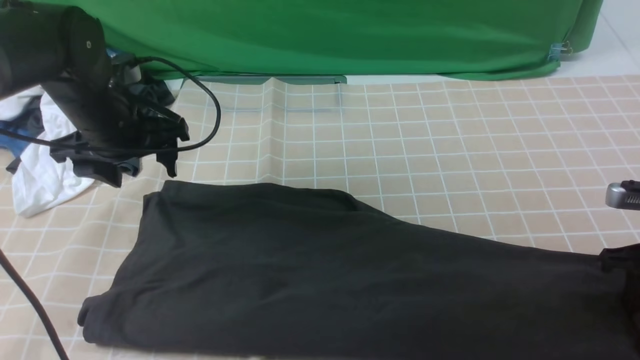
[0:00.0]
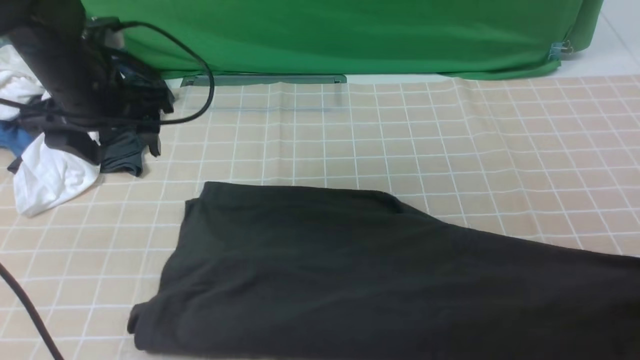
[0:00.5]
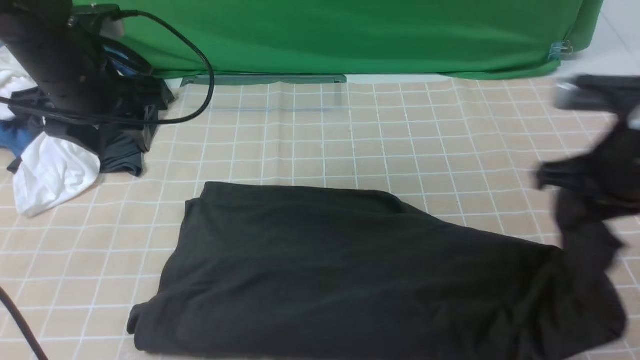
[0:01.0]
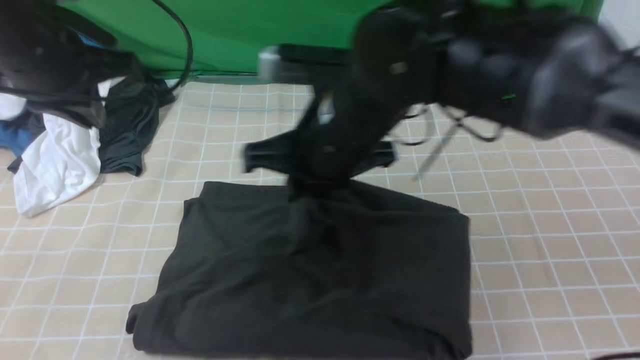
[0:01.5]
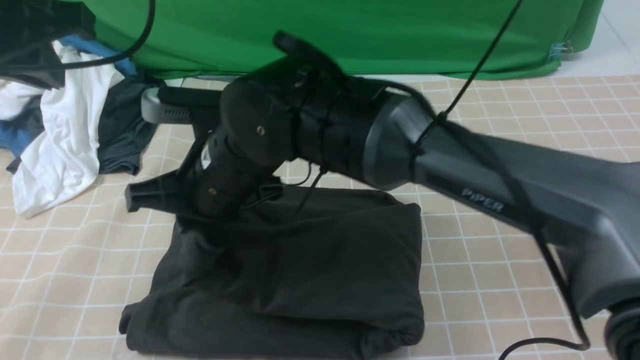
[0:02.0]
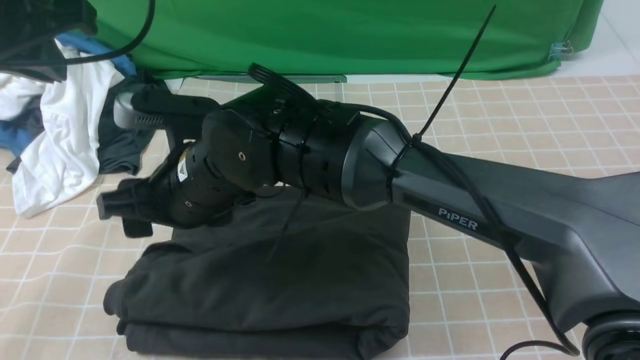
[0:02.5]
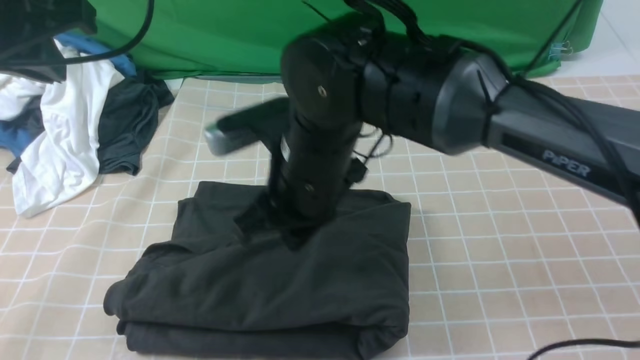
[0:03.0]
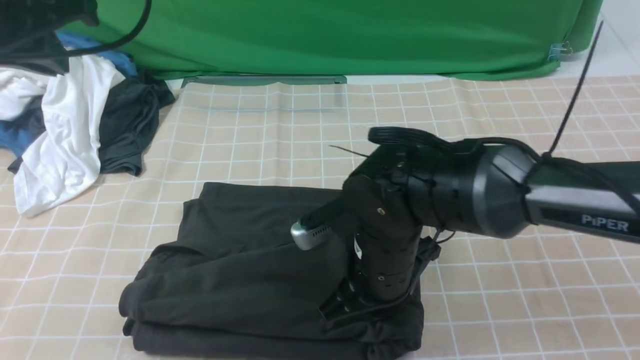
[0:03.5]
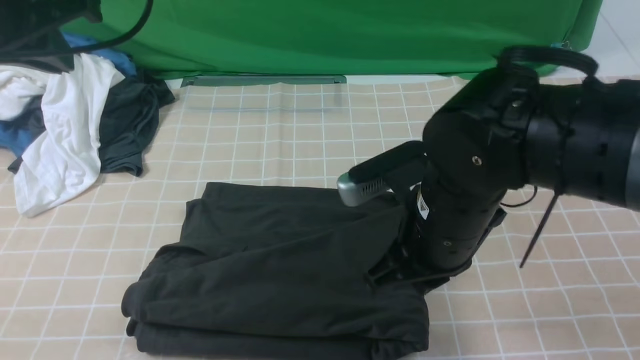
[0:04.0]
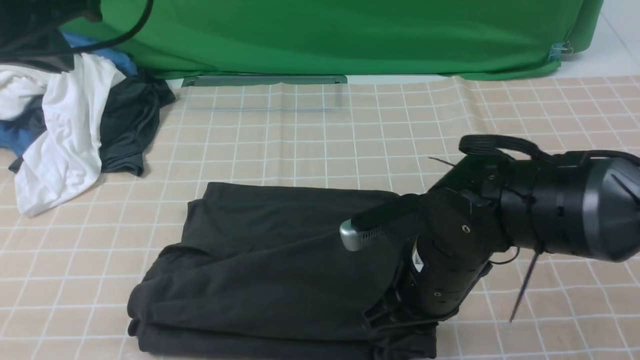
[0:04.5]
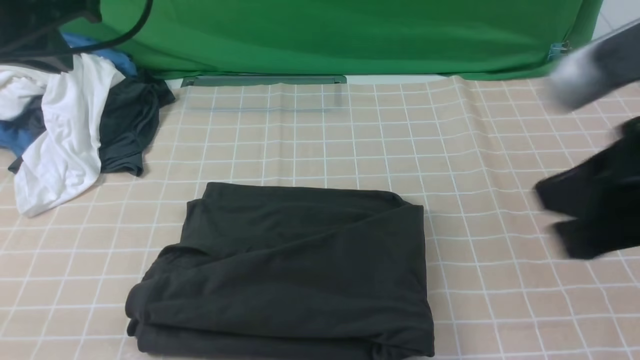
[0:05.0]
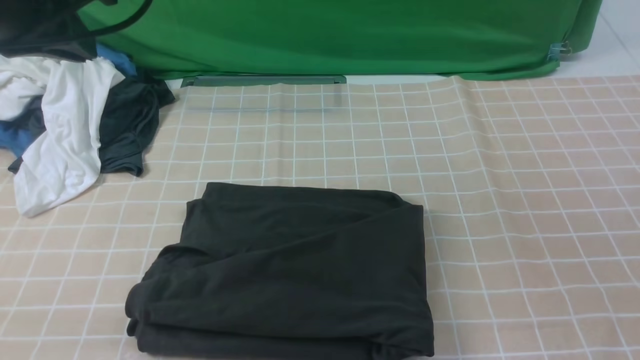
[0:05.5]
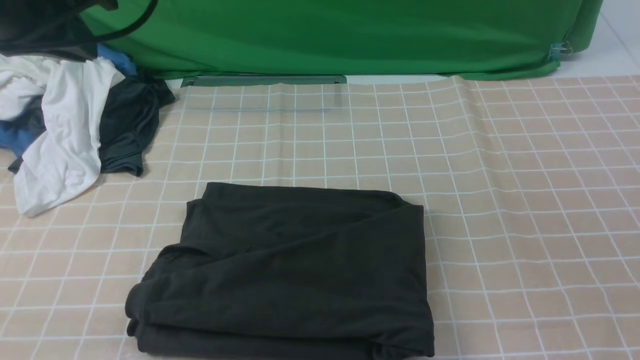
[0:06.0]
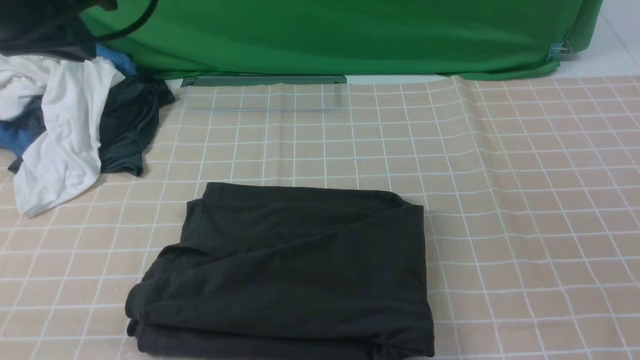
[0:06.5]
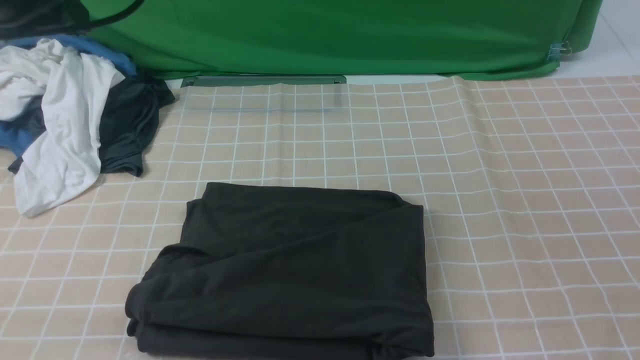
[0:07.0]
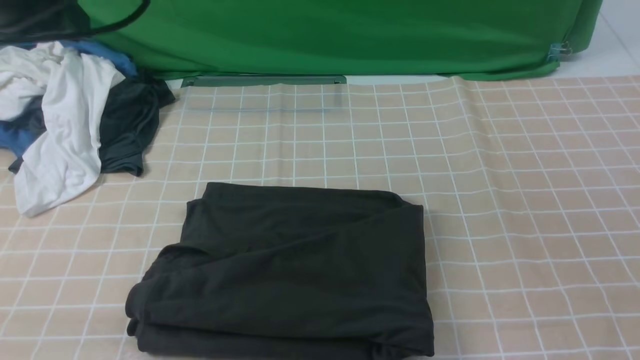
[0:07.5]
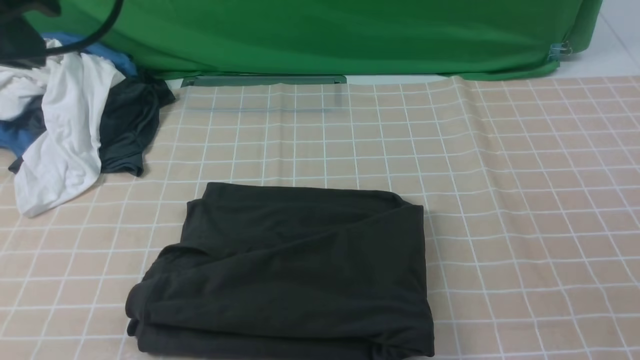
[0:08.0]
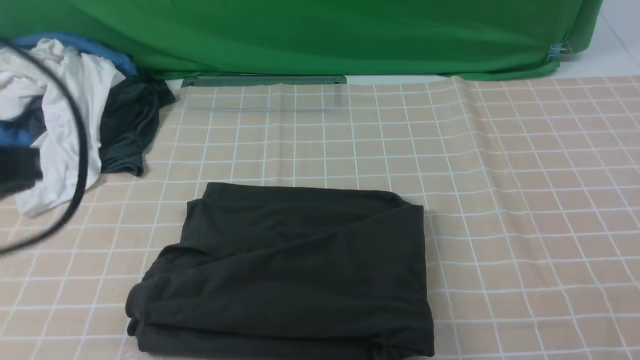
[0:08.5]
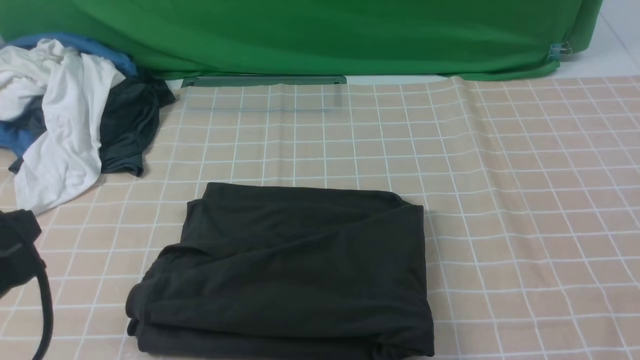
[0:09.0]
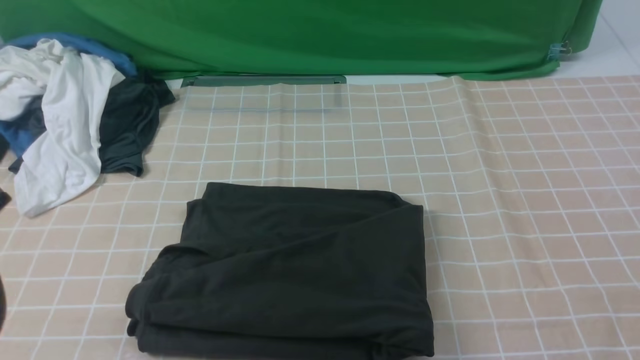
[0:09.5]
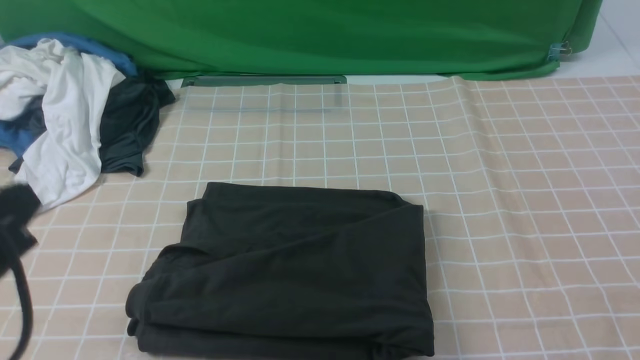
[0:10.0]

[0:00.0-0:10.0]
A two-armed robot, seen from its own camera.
Step, 0:00.5 to 0:02.5: use the right arm to drag the right edge of the fabric to the left and folds it over the left edge.
0:00.0 to 0:02.0: The left gripper travels upward and backward by roughly 20 cm, and closes; the right gripper travels to the left by roughly 50 cm.
0:02.0 to 0:04.0: The right gripper moves to the right, some 15 cm, and opens, then closes again.
0:04.0 to 0:06.0: The right gripper moves to the right, backward and upward, approximately 30 cm.
0:06.0 to 0:08.0: The left gripper shifts roughly 5 cm backward.
0:08.0 to 0:10.0: The left gripper heads backward and downward, covering approximately 15 cm.

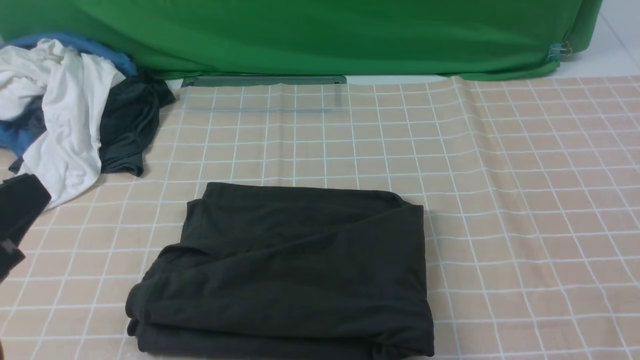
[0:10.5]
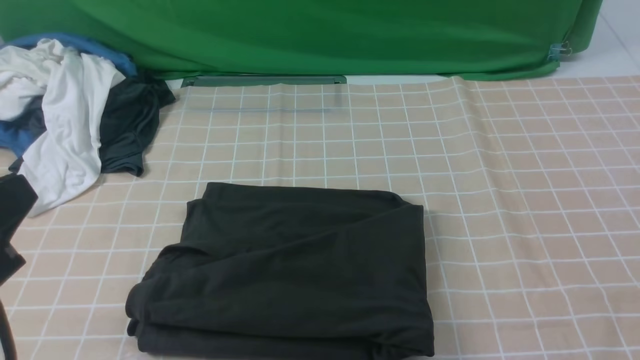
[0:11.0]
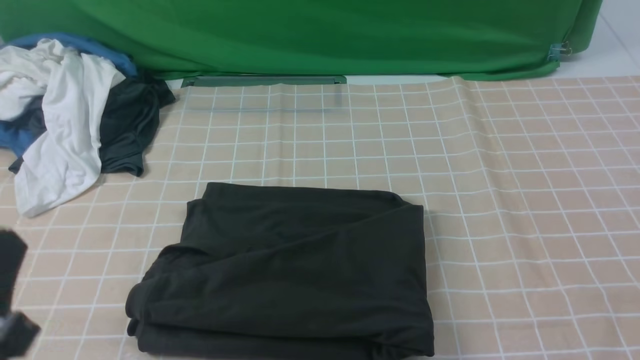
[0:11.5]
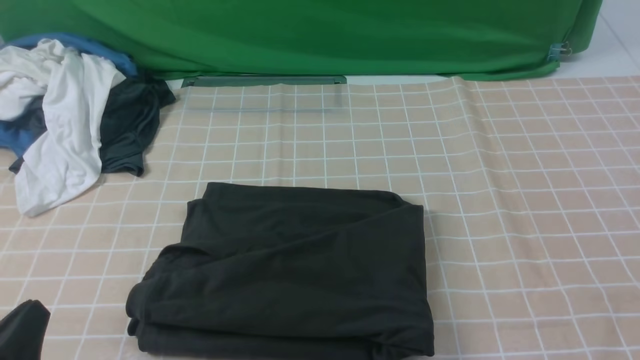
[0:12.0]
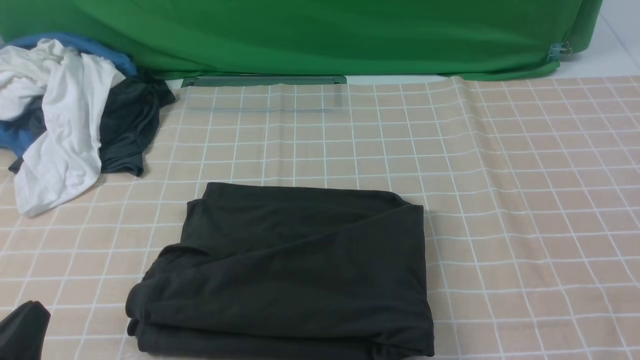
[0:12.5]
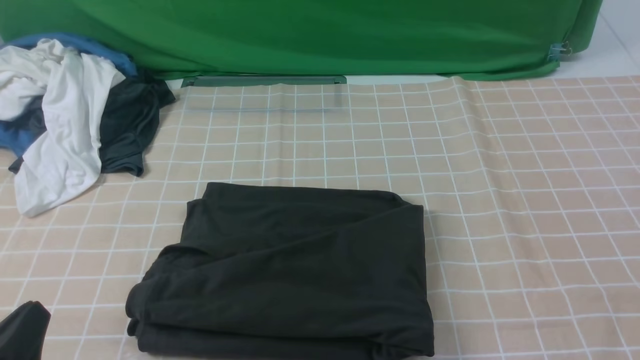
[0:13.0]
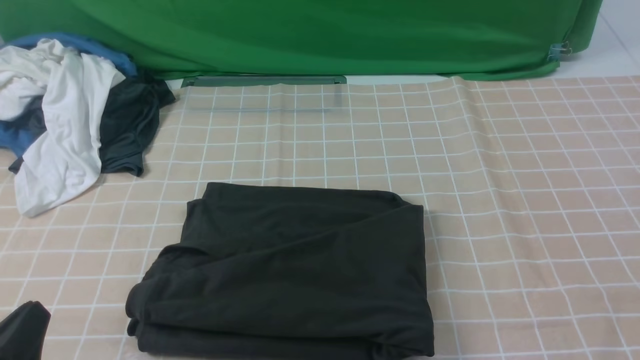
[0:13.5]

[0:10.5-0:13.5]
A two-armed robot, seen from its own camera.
0:10.5 to 0:12.0: The left gripper is displaced downward by some 15 cm.
0:12.0 to 0:13.5: Neither gripper changes place.

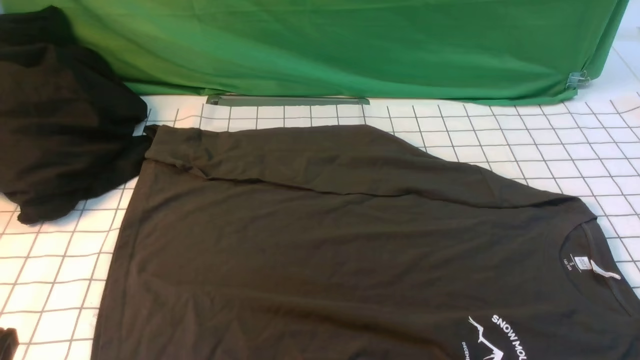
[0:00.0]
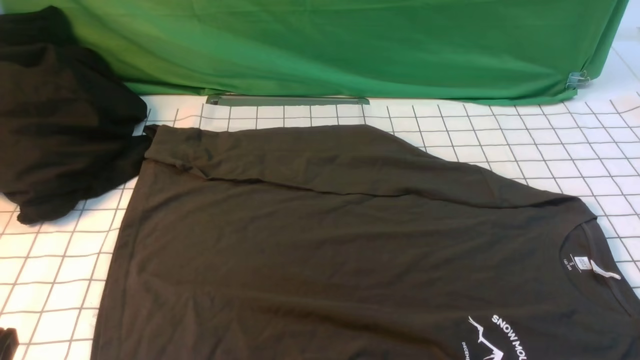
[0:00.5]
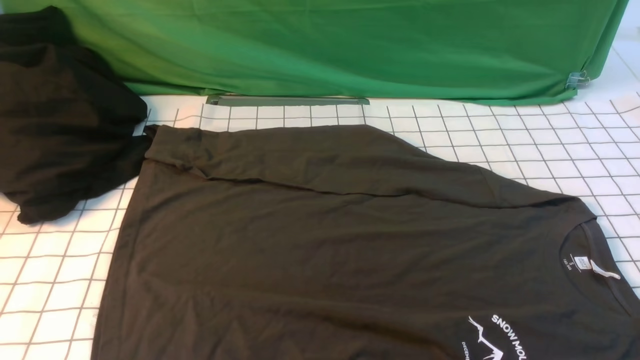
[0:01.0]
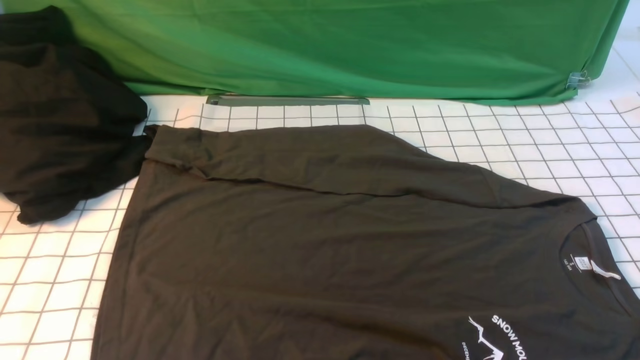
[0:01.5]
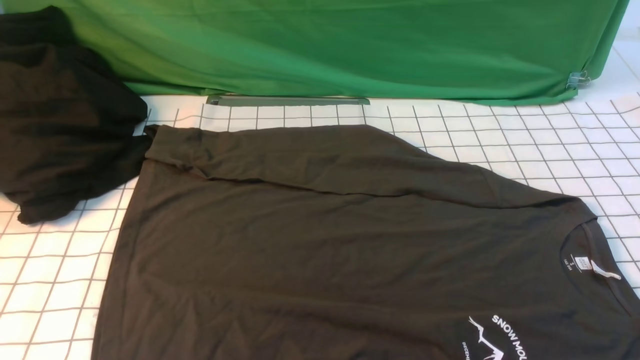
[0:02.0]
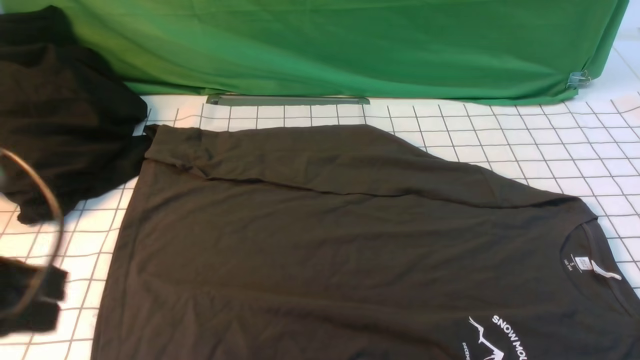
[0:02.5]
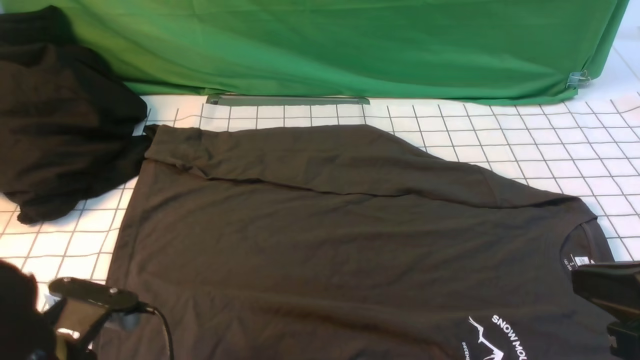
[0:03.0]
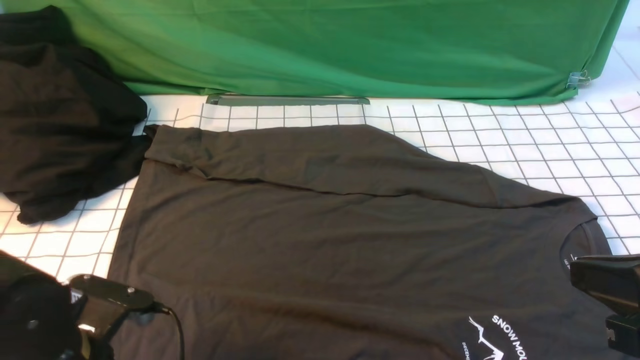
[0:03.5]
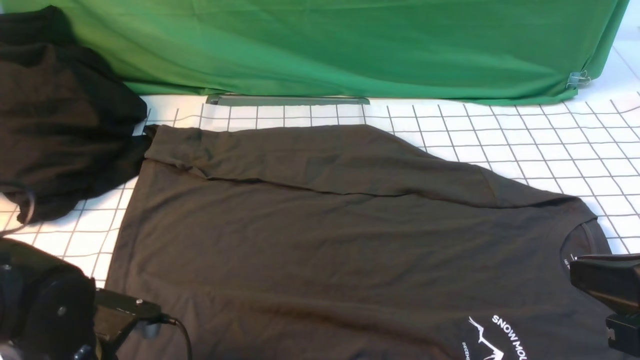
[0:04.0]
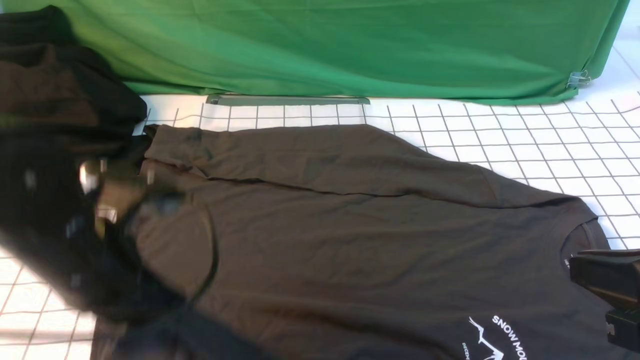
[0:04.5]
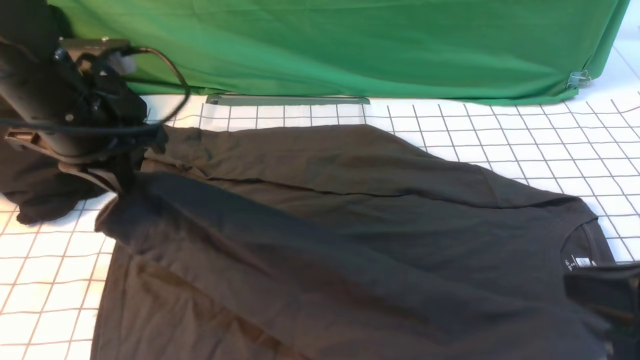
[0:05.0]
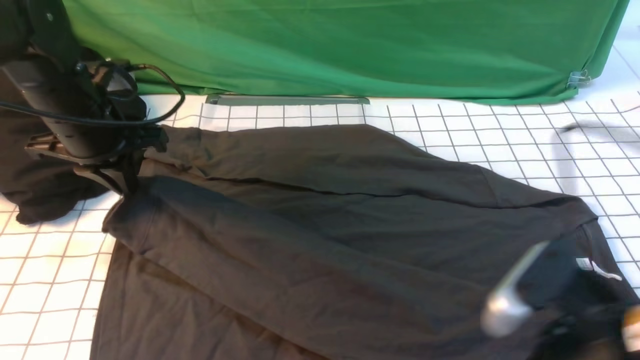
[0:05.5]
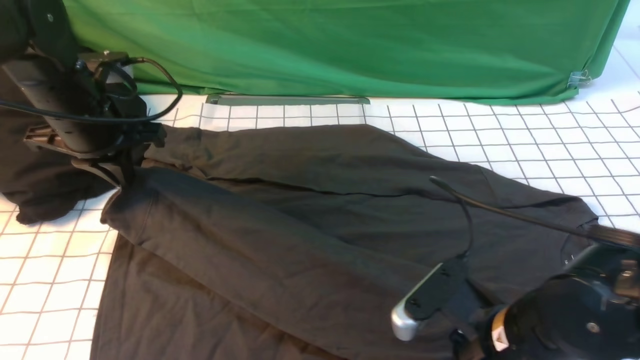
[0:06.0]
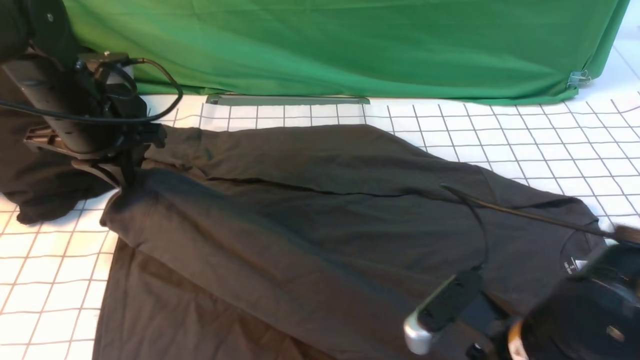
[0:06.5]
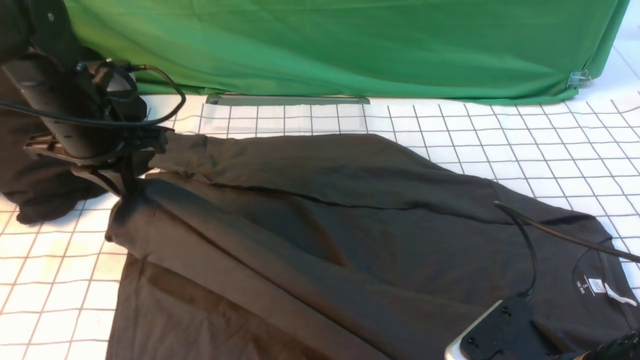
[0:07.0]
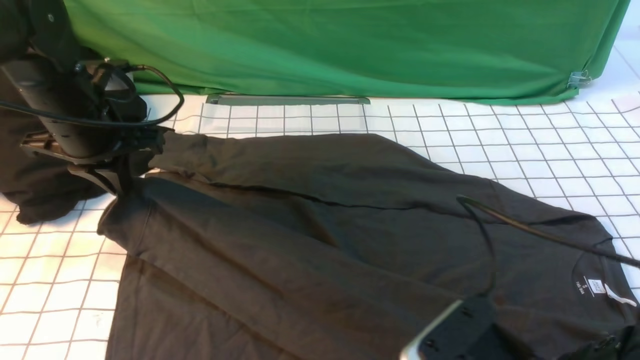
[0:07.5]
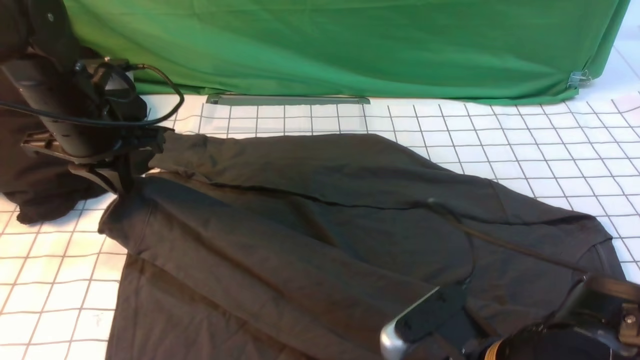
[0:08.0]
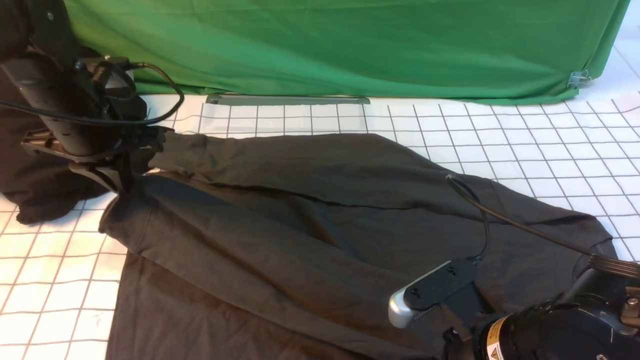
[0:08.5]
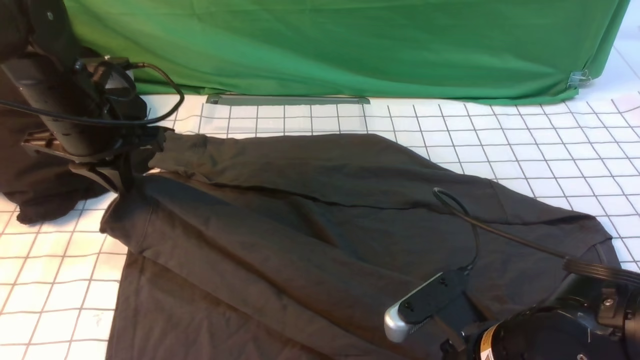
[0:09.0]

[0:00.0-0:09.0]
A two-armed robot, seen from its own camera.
Step, 0:00.0 to 0:04.0: use the left arm to clamp the cuff closest to it.
0:02.0 to 0:04.5: The right gripper goes about 10 cm forward, upward and to the left. The left gripper goes approximately 20 cm forward, to the right and downward, and opens and closes again.
0:04.5 to 0:07.0: The right gripper goes about 15 cm downward and to the left; the left gripper travels forward and to the left by approximately 15 cm.
0:07.0 to 0:09.0: The right gripper moves some 5 cm, and opens and closes again.
